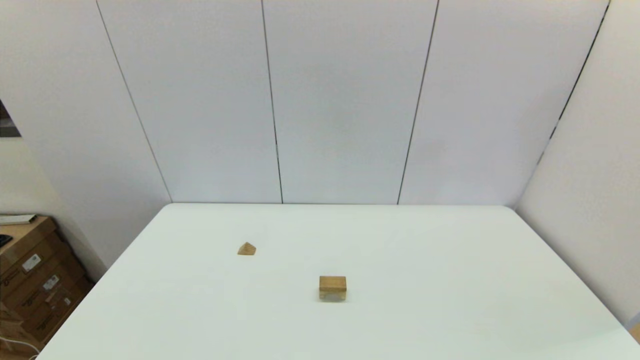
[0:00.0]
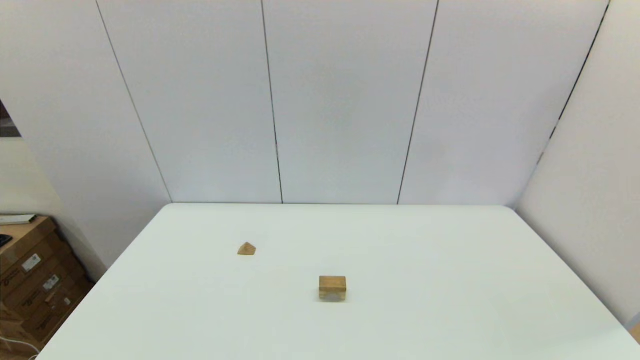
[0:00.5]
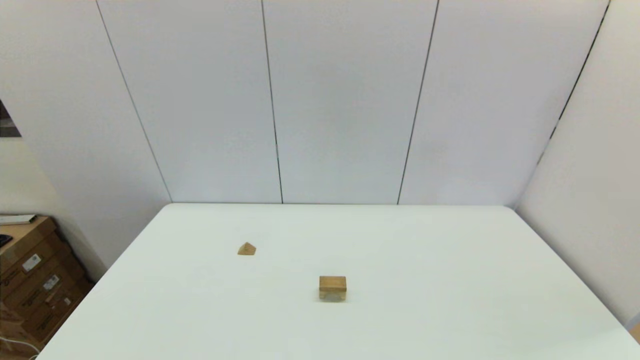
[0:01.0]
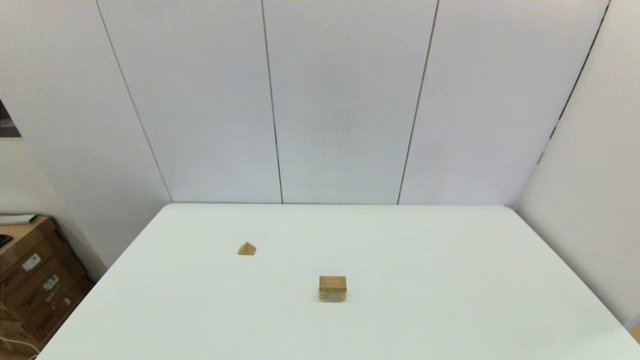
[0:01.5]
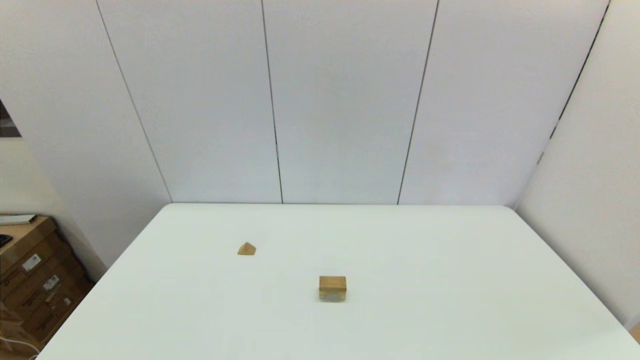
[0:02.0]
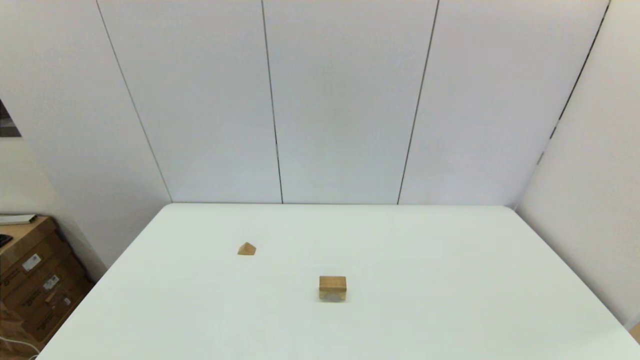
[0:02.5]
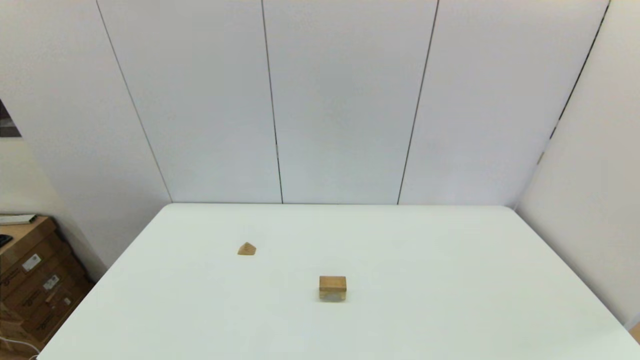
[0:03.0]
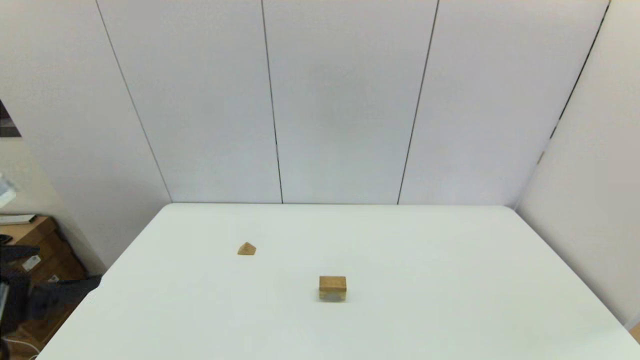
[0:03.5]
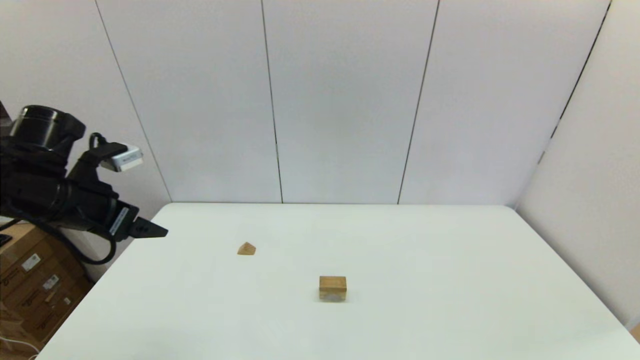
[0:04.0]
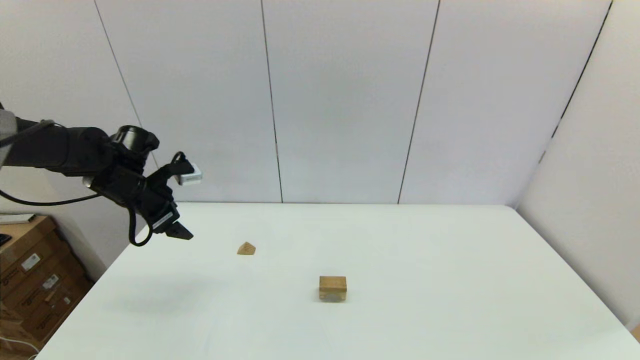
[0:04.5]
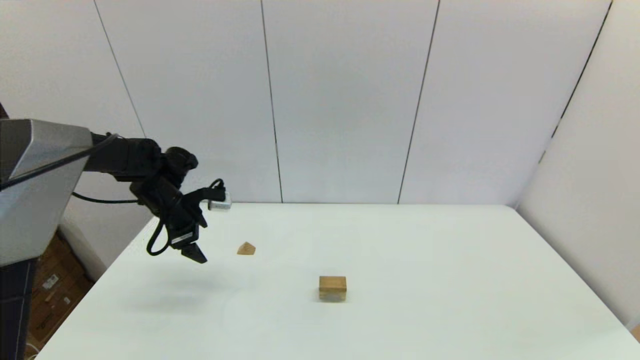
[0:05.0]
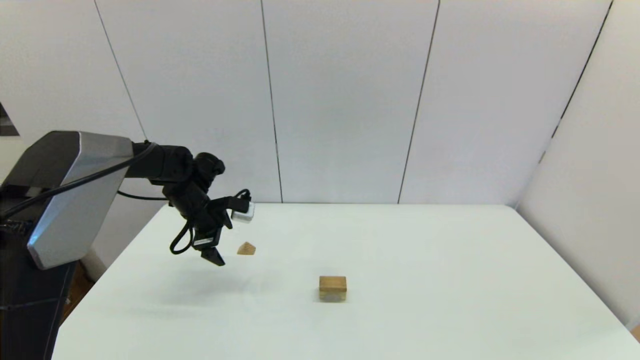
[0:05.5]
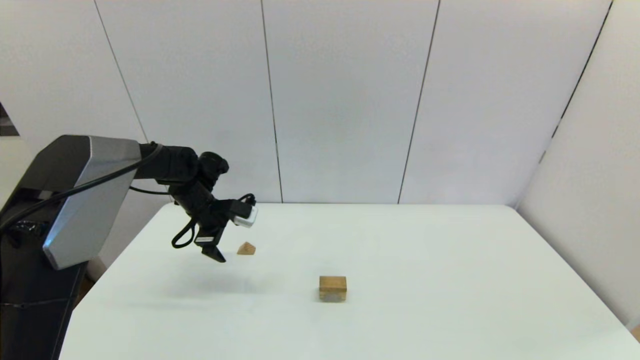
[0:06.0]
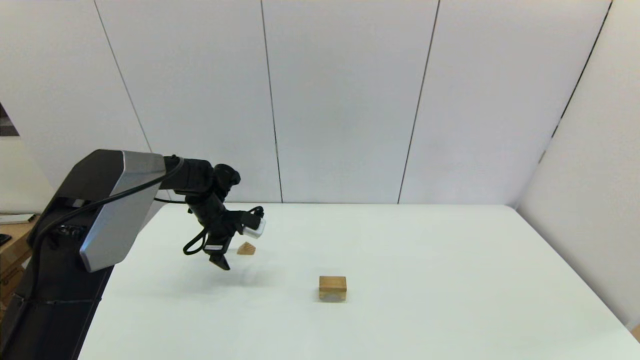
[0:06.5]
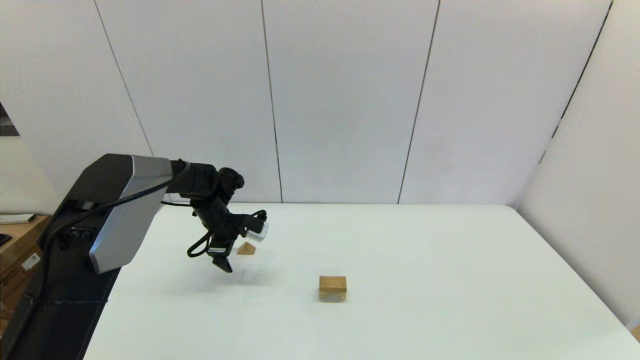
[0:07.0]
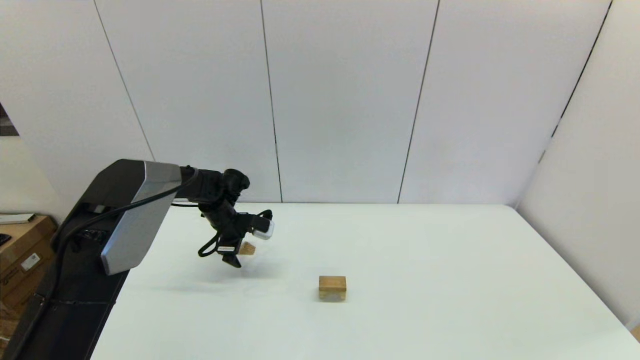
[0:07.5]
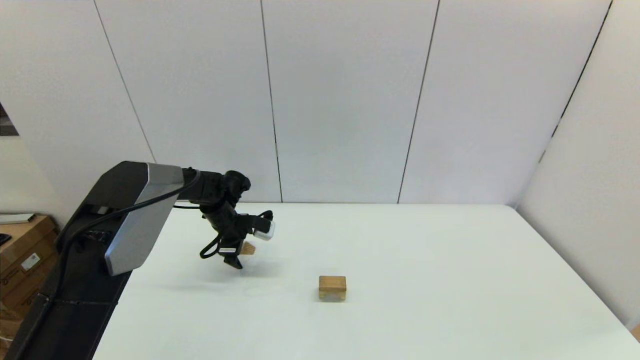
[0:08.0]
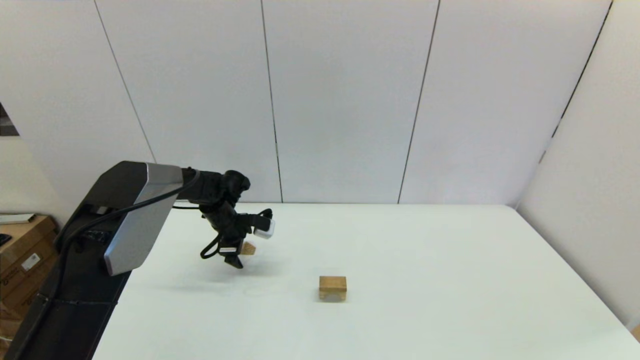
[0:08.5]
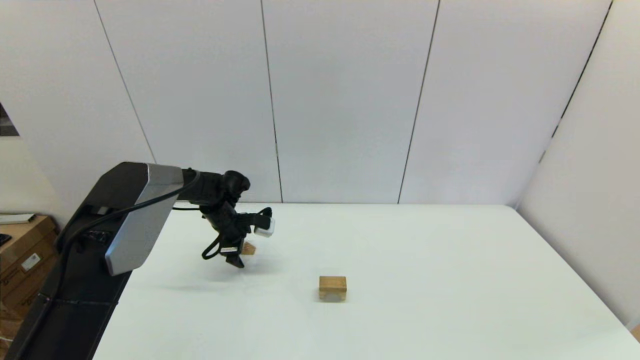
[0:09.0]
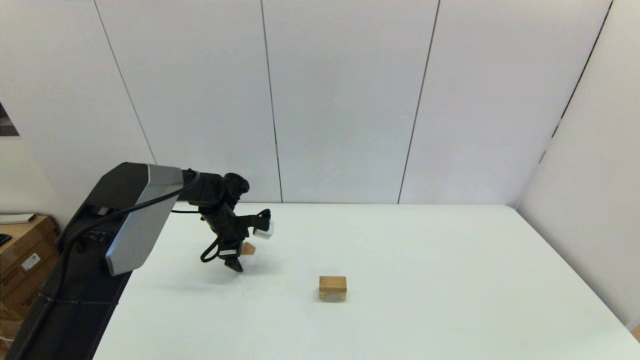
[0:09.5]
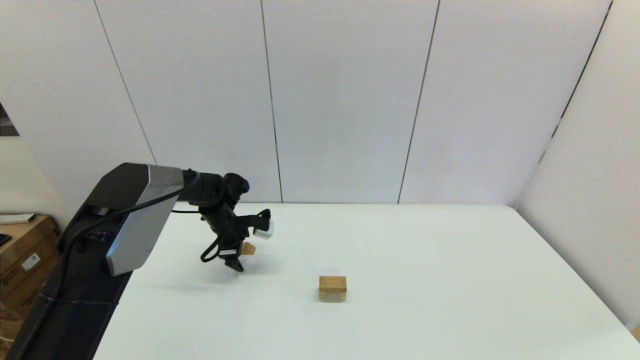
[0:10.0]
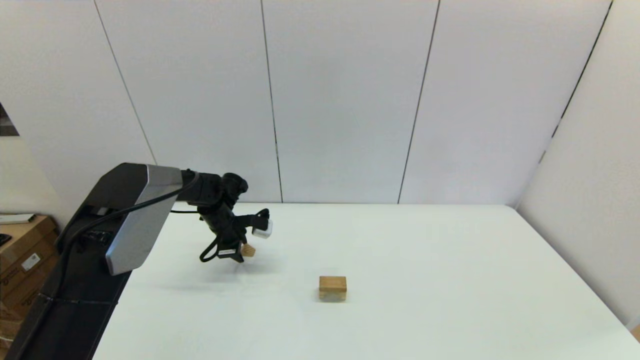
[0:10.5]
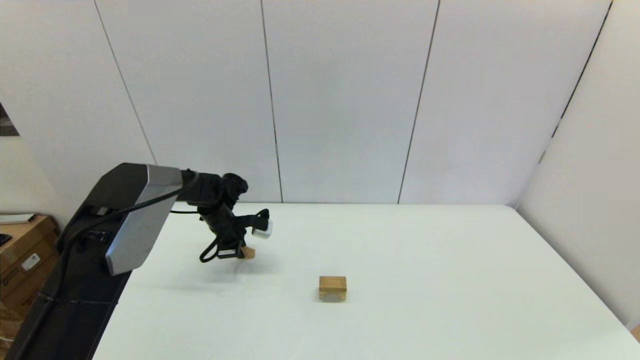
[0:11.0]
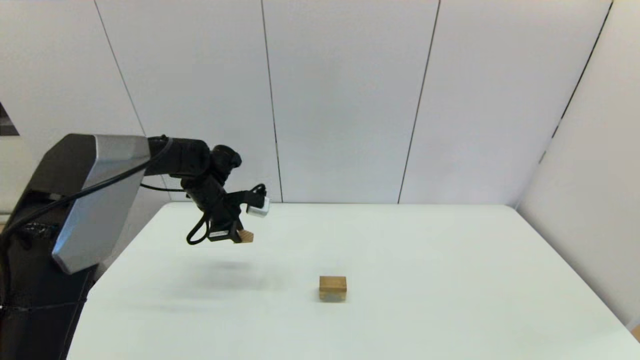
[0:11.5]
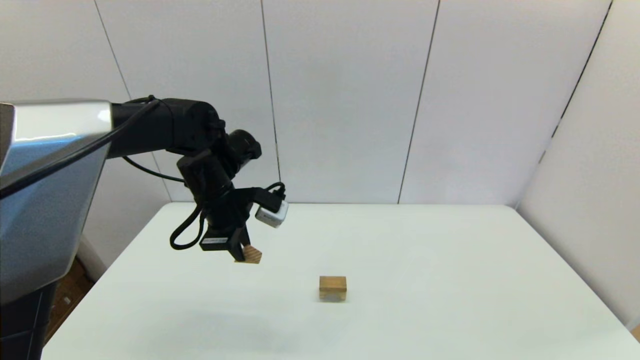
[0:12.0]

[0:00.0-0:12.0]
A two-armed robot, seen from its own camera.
Task of the whole recording: place the arched building blocks in the center of the table, set up the rectangular building blocks, and then set up the triangular building blocks.
Step, 0:00.0 to 0:11.0: Grasp the triangle-shaped block with the left gripper.
0:02.0 to 0:04.0: The left gripper shifts about 30 cm forward.
0:04.0 to 0:06.0: The left gripper heads forward, downward and to the right, covering approximately 20 cm.
0:06.0 to 0:08.0: The left gripper travels downward by some 5 cm.
0:08.0 to 0:10.0: There are only small adjustments of the grippers.
0:10.0 to 0:12.0: The left gripper goes about 20 cm upward and backward, and closes up.

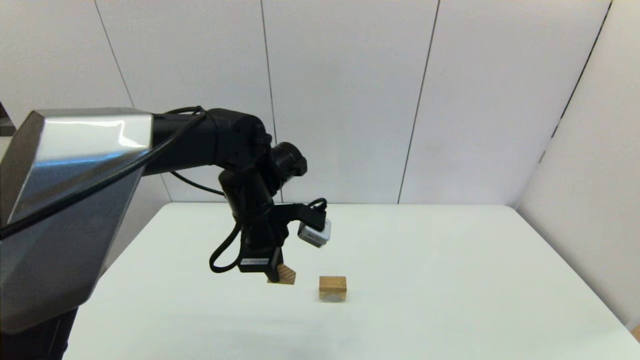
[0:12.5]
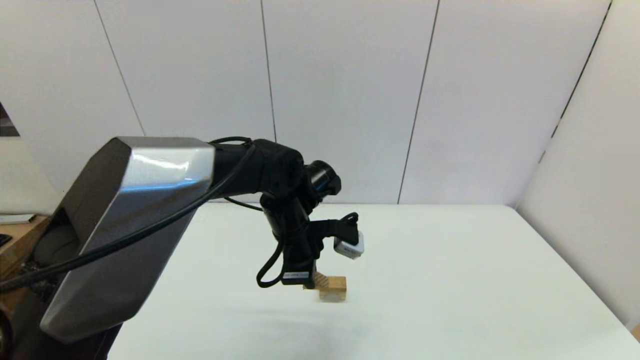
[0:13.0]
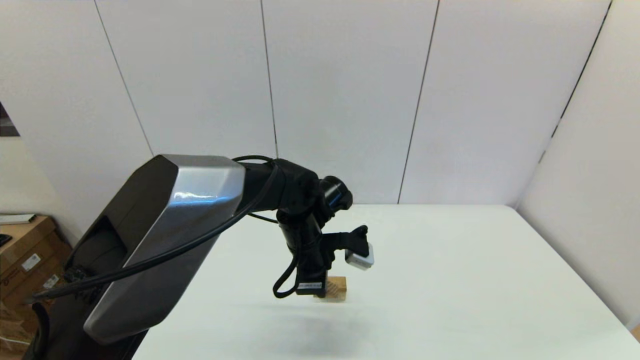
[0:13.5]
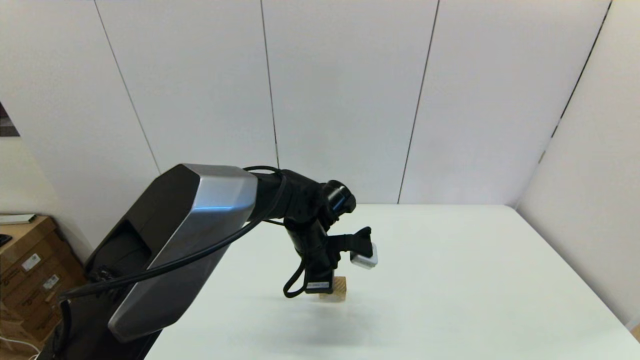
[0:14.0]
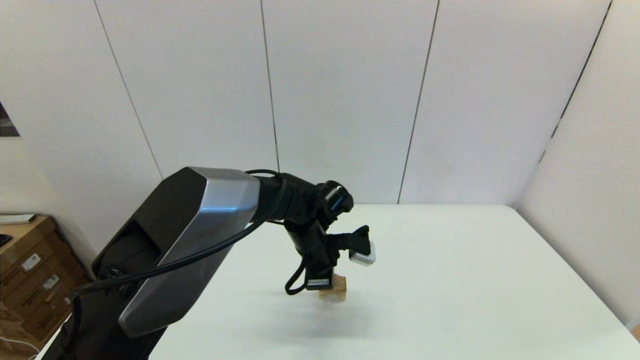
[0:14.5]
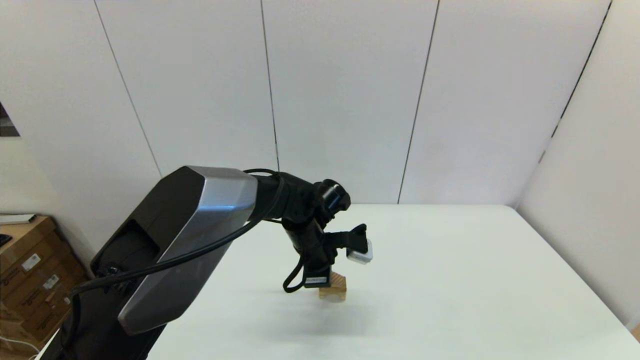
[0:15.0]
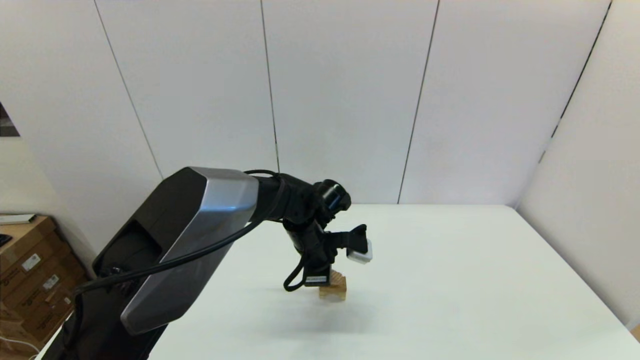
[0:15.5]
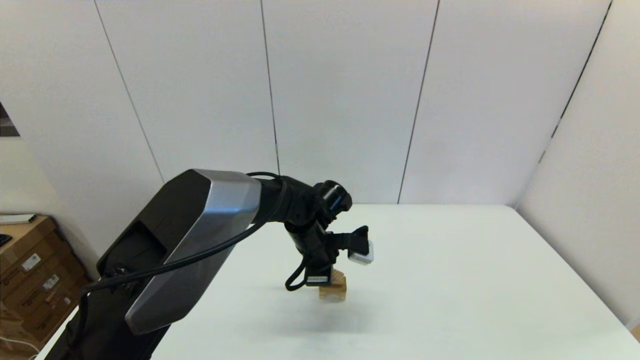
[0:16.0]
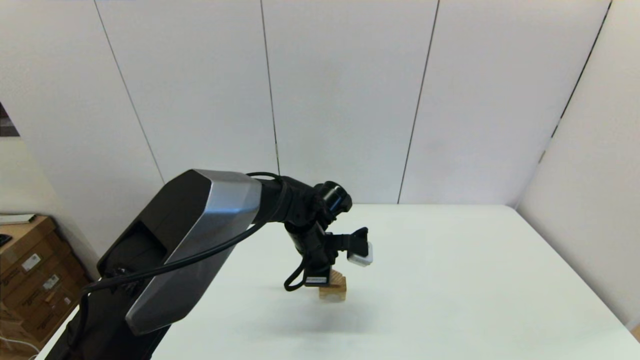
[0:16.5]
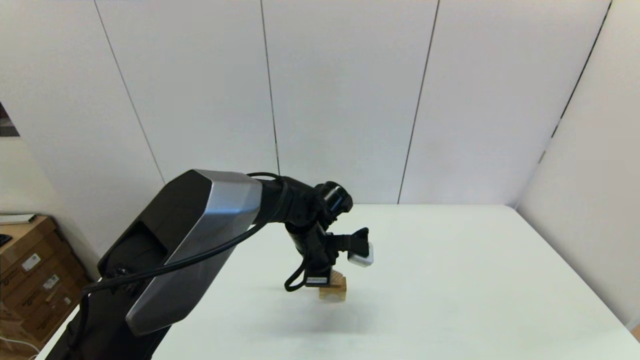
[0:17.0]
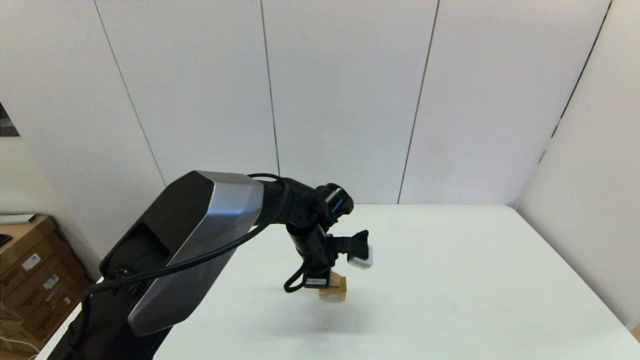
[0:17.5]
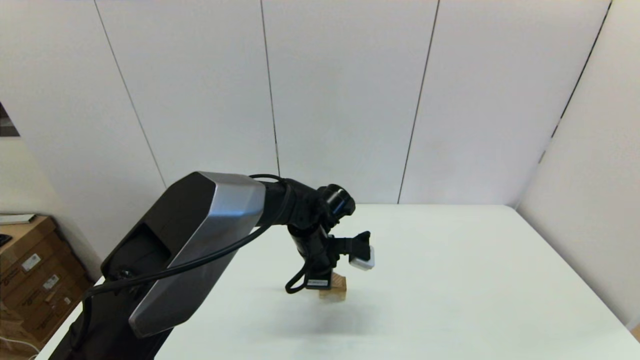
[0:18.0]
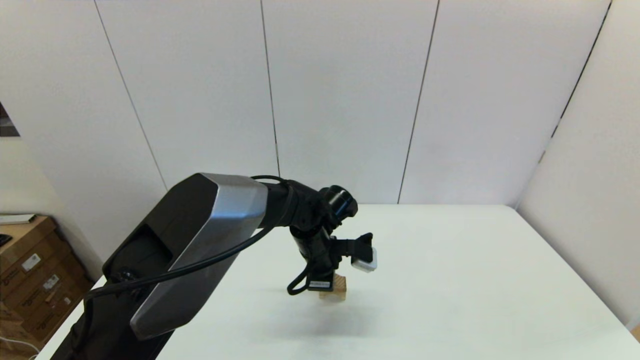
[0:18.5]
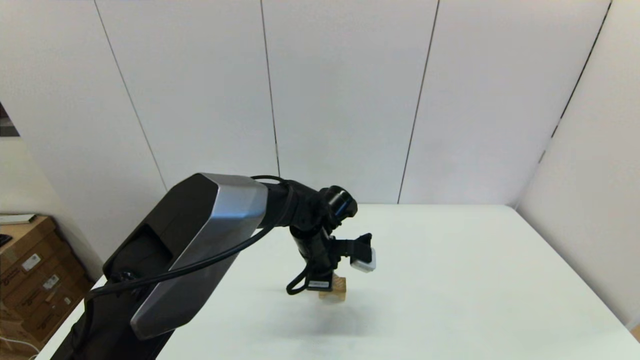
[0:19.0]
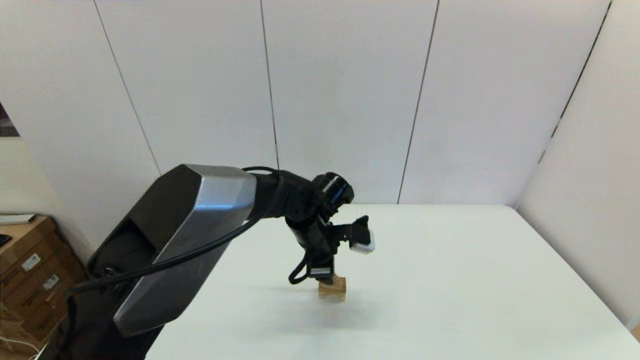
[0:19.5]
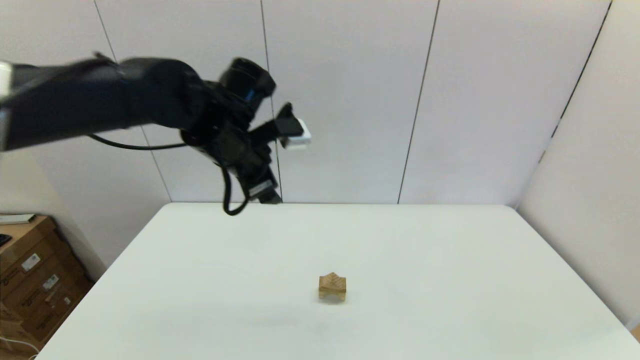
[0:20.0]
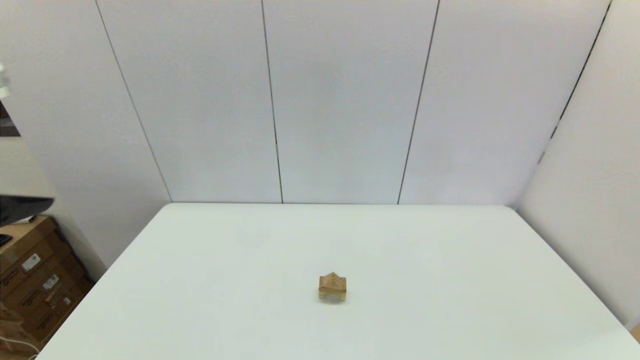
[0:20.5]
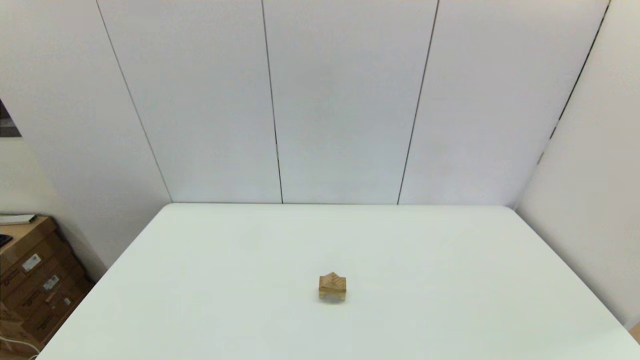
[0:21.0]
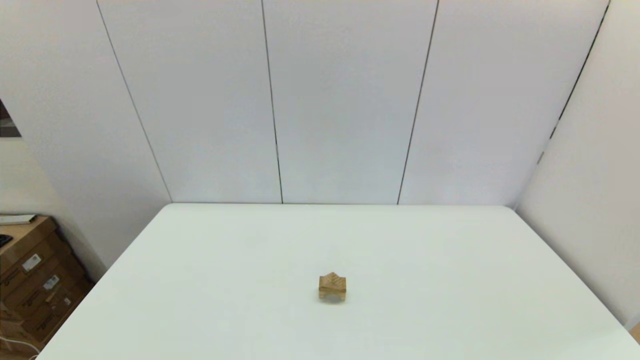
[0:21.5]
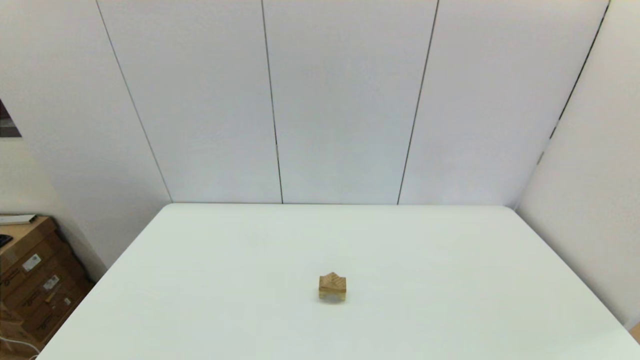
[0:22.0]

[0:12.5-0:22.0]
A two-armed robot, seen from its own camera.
Task of the whole recording: place the arched building blocks in the center of the table, set up the rectangular building blocks, and then set up the triangular building blocks.
0:12.5 to 0:14.5: The left gripper moves downward and to the right, some 10 cm.
0:14.5 to 0:16.5: Both grippers stay put.
0:16.5 to 0:18.0: Both grippers stay about where they are.
0:18.0 to 0:20.0: The left gripper moves upward and to the left, about 25 cm, and opens.
0:20.0 to 0:22.0: The left gripper moves backward and to the left, about 50 cm.
